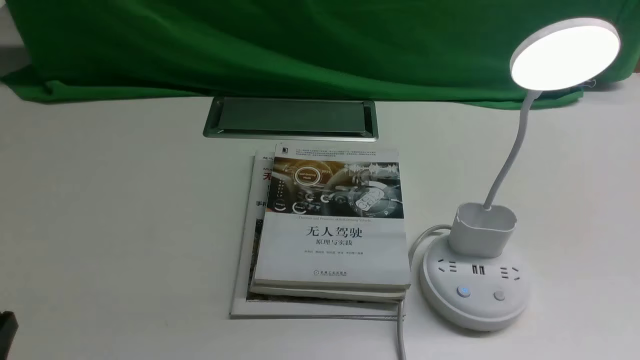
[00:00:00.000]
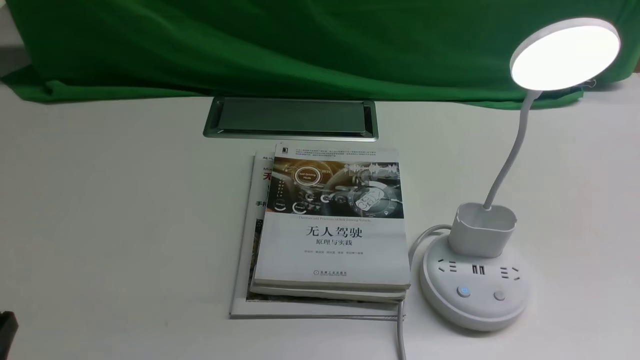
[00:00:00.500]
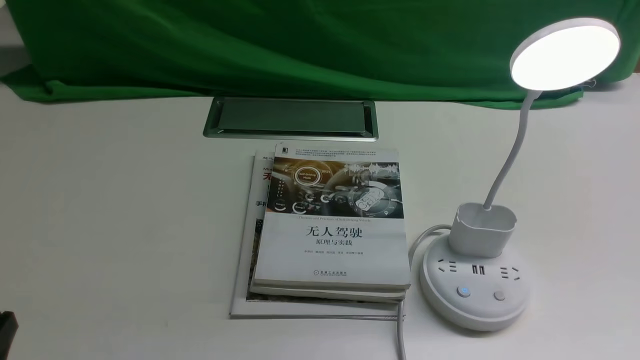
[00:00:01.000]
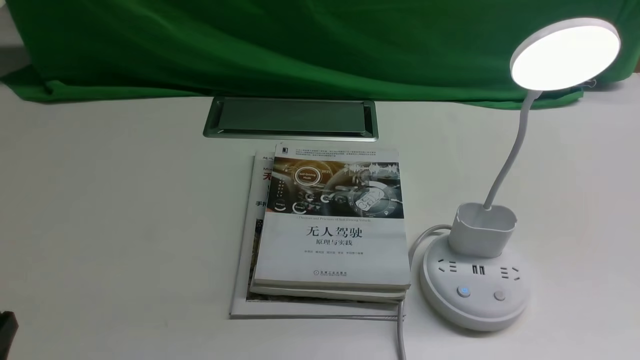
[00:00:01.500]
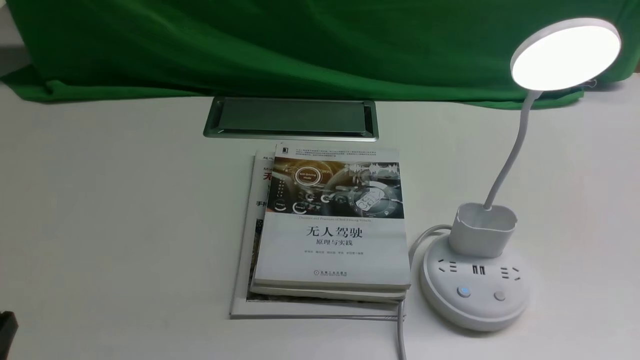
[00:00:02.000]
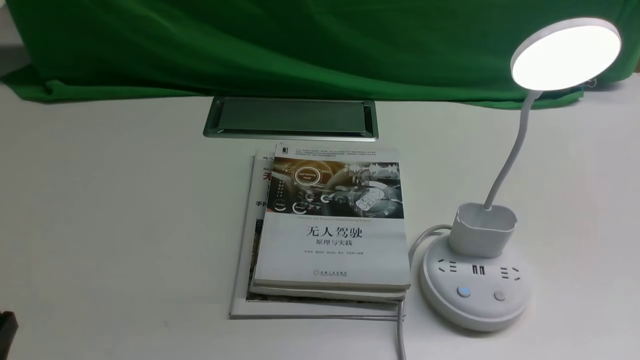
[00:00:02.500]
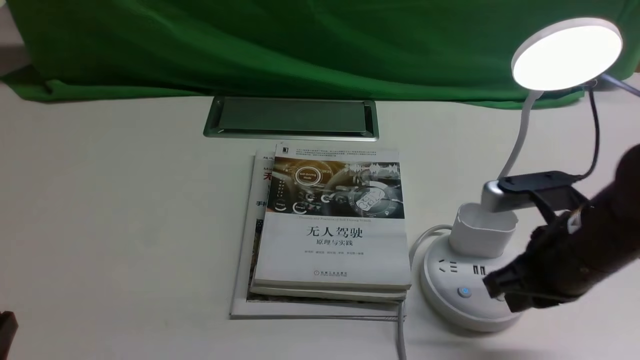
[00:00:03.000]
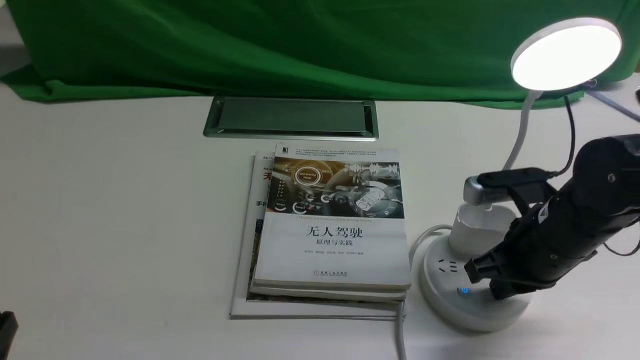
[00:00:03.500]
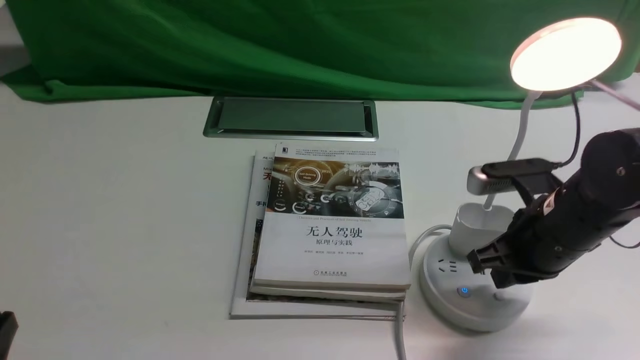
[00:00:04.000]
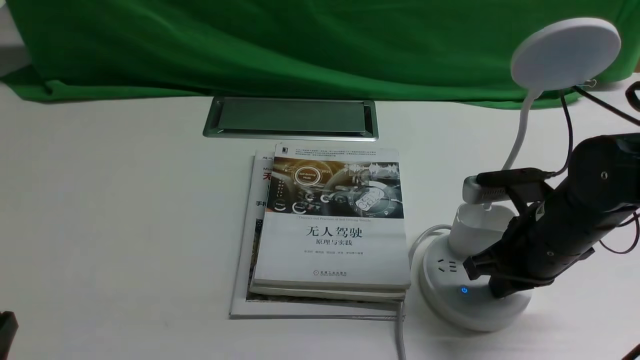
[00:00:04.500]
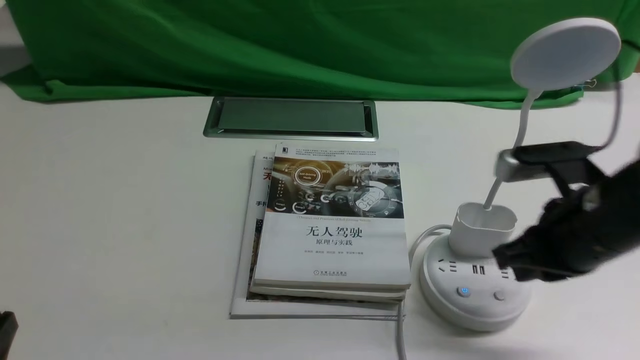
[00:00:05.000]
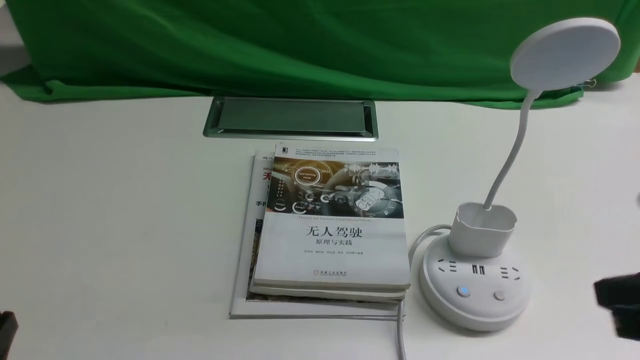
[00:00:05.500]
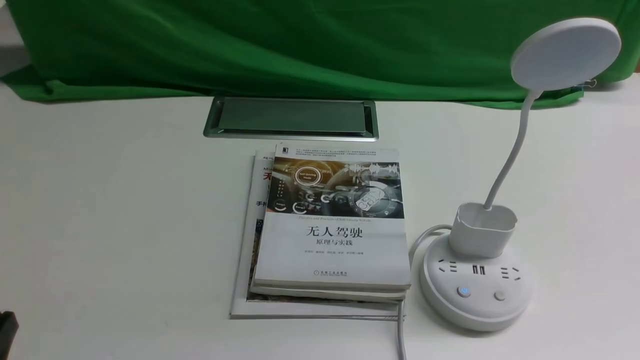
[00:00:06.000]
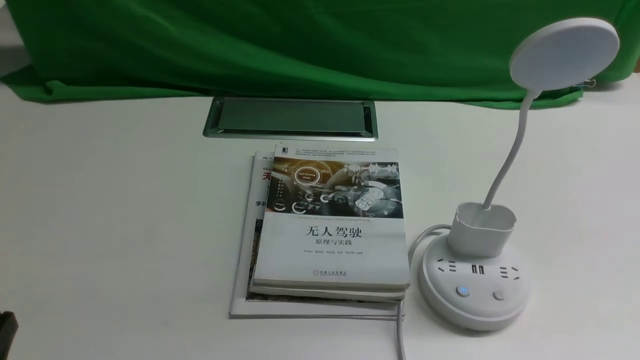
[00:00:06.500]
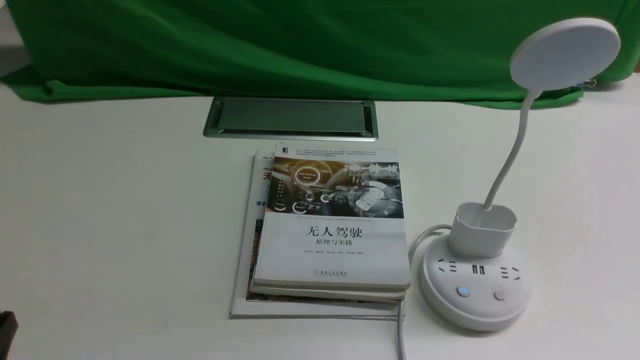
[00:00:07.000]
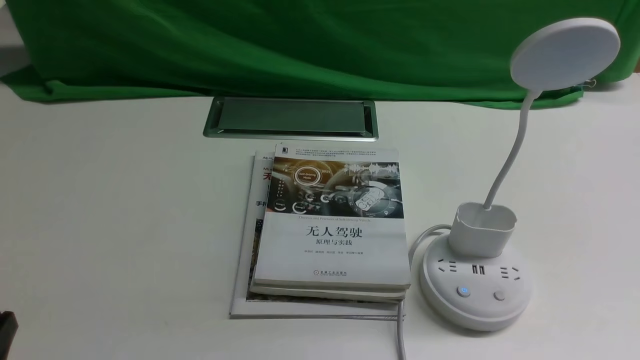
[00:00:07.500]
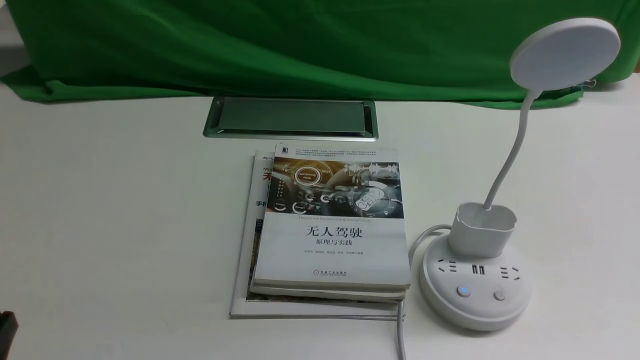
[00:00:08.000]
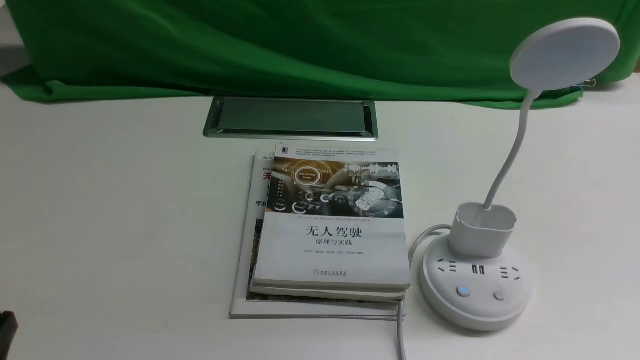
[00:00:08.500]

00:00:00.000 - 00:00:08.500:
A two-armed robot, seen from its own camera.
Task of the whole recording: turn off the desk lamp on the white desktop by hand.
Step, 00:00:00.000 - 00:00:04.500: use the right arm to press the button switch on the lamp holder.
00:00:02.000 - 00:00:04.000: The right gripper shifts roughly 25 cm forward and to the left, and closes up.
00:00:04.000 - 00:00:06.500: The right gripper goes about 25 cm backward and to the right.
00:00:06.500 - 00:00:08.500: Neither gripper changes place.
